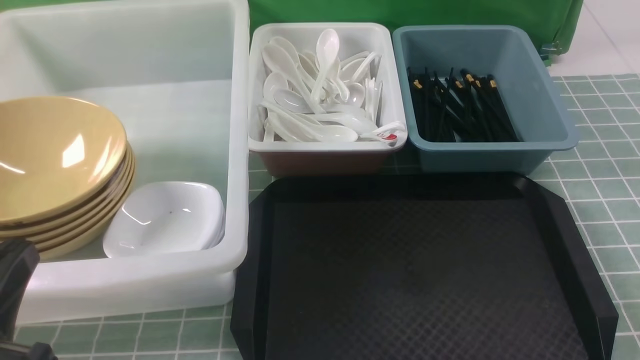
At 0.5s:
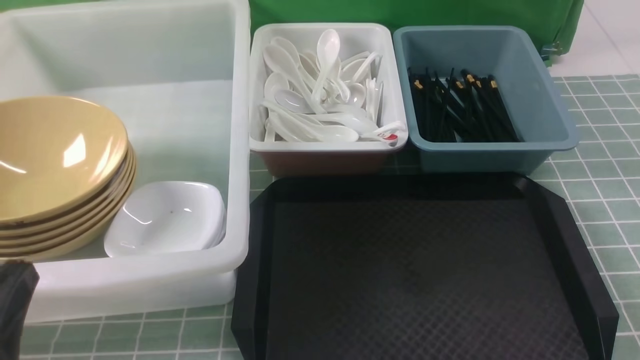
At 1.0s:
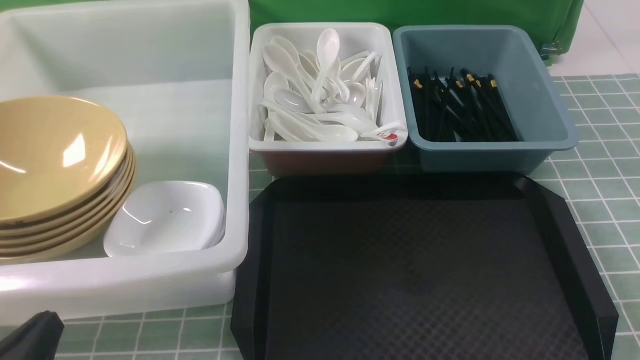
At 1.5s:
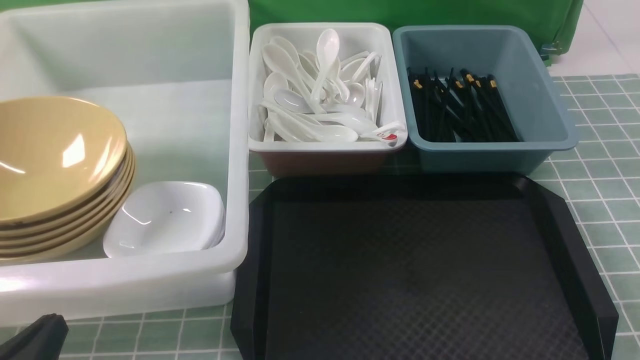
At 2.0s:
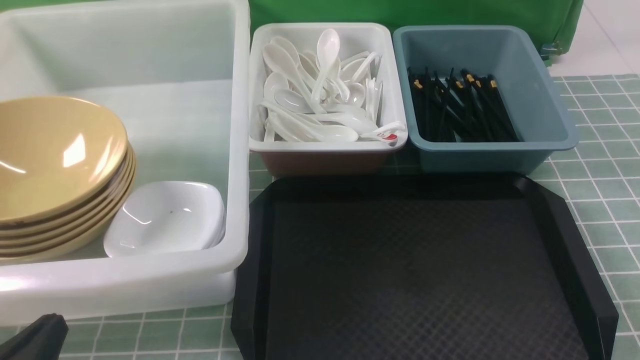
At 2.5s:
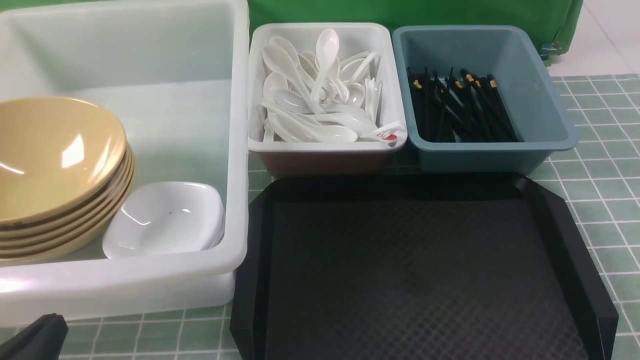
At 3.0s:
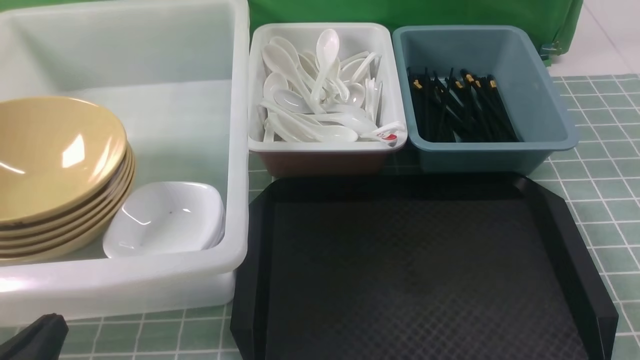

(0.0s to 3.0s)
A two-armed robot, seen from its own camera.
Task of the whole recording: on blue table put chopsticks spoon bowls plates into blue grey white boxes.
0.0s - 1.5s: The left gripper is displaced downward by roughly 10 cm.
1.5s - 3.0s: Both grippers stay put.
